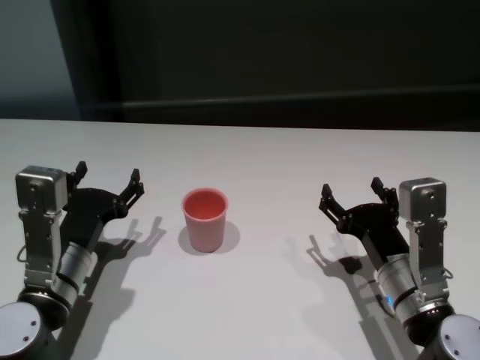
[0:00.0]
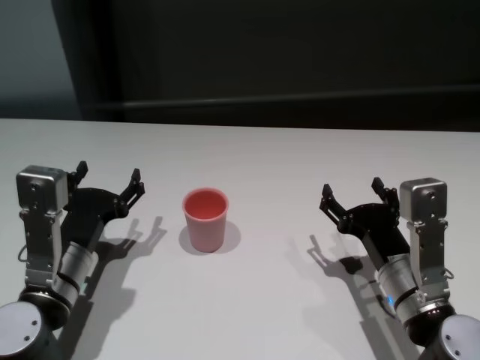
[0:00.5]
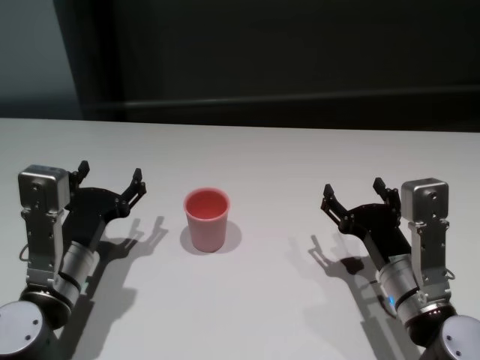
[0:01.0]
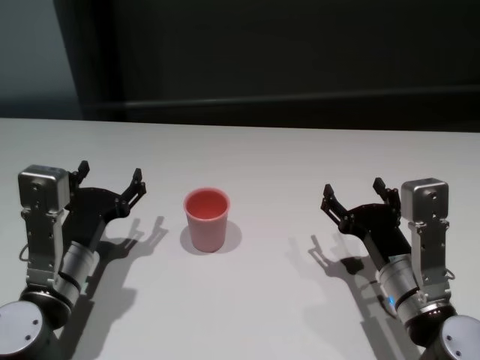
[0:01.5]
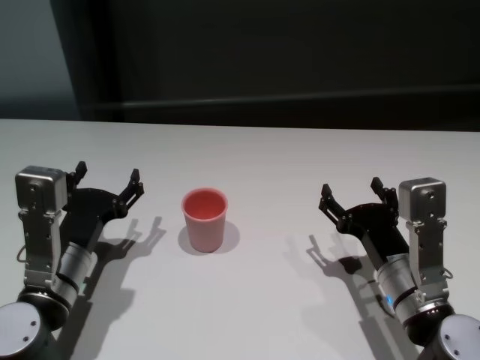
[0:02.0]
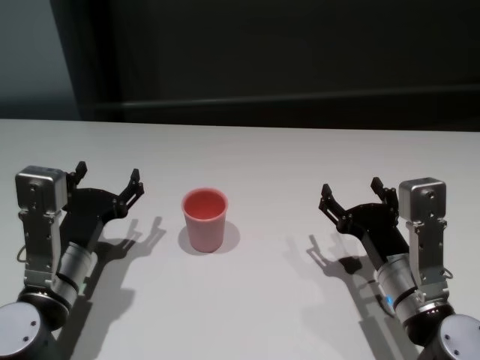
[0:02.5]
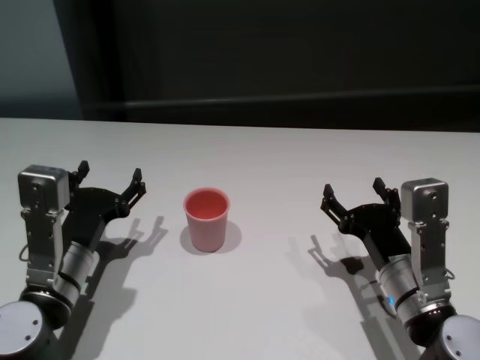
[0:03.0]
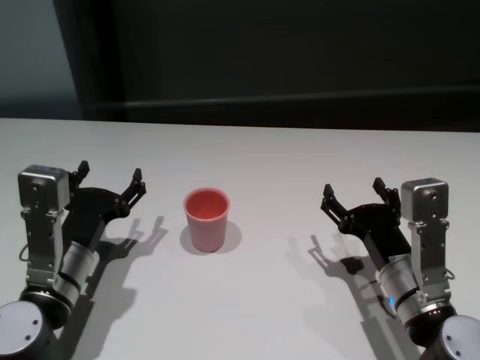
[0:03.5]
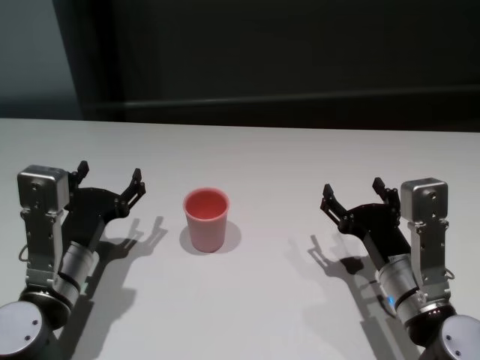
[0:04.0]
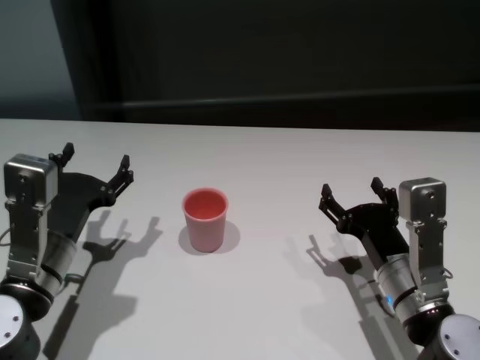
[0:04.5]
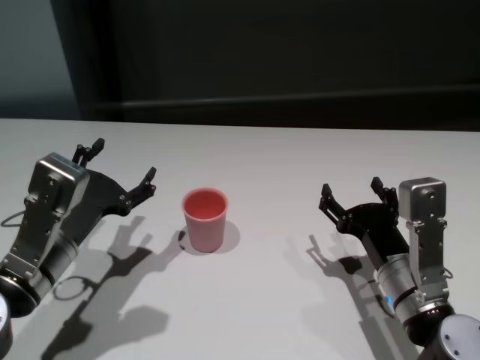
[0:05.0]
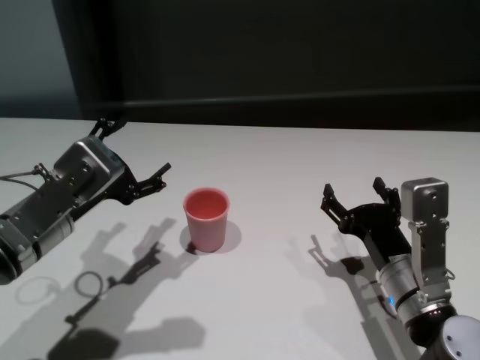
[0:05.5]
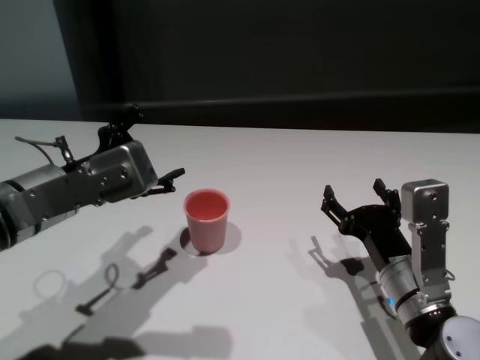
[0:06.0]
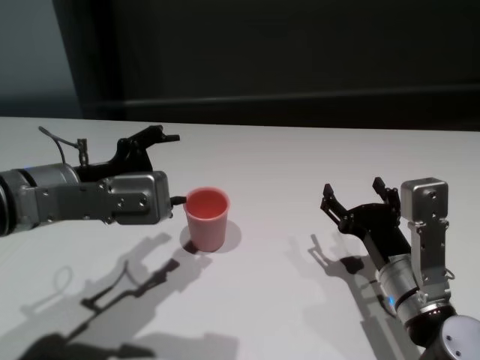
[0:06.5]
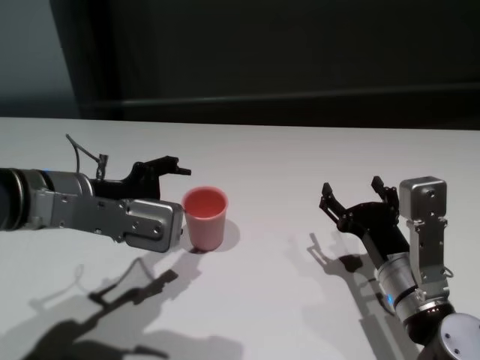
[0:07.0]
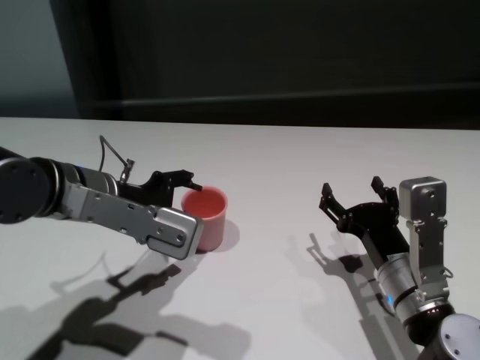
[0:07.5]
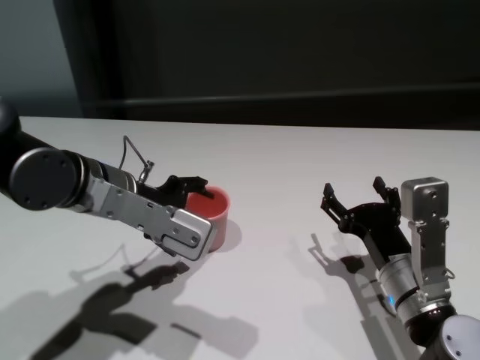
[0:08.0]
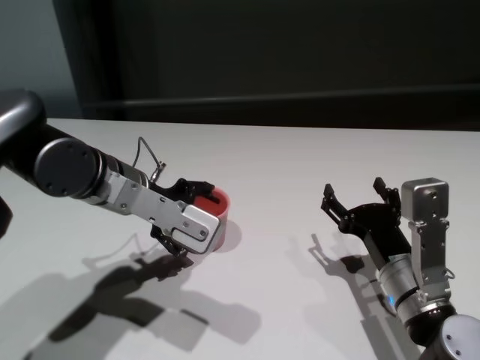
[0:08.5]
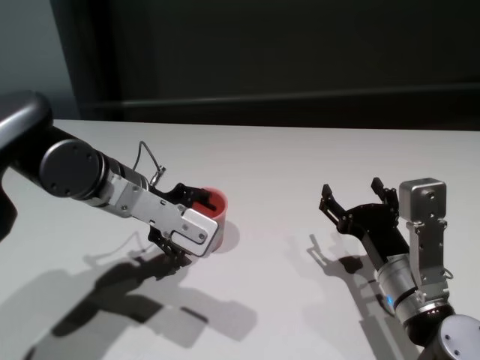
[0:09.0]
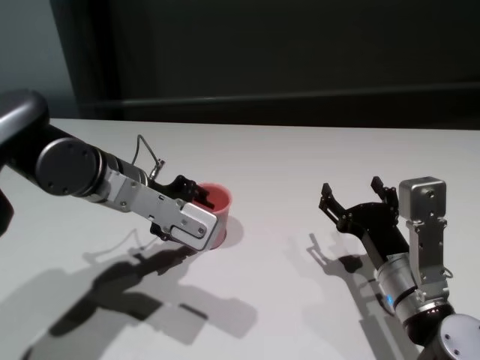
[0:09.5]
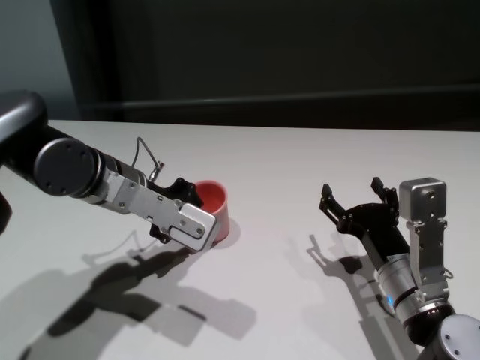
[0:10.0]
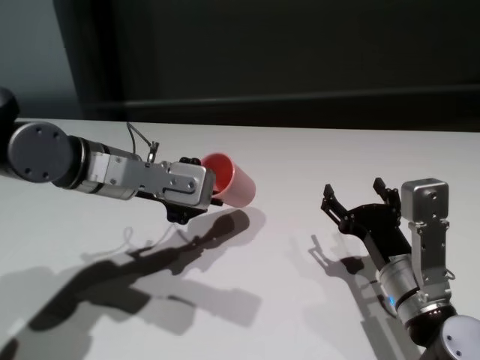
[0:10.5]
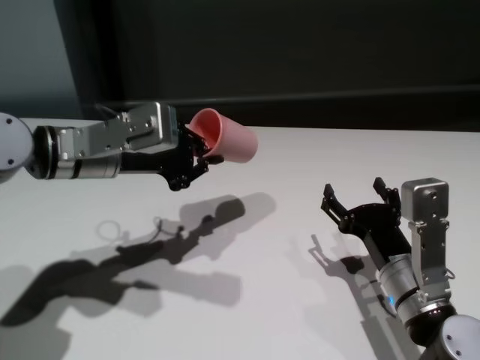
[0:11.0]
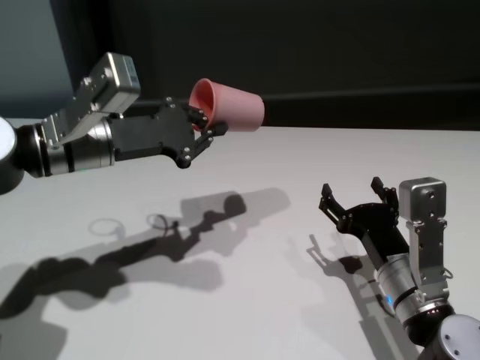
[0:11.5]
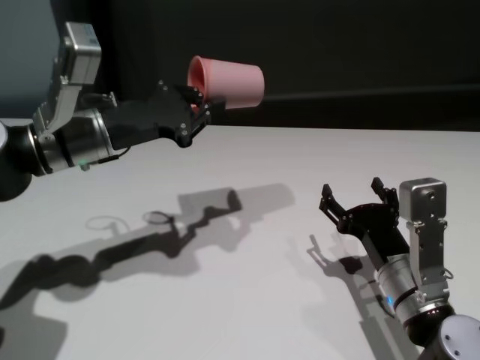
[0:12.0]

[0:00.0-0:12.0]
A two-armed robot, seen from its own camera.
Task of the whole recording: On the white table pick up the cup with one hand and transfer it to the other hand before turning it over.
Step, 0:00.0 to 0:09.5: Grasp the cup with left gripper.

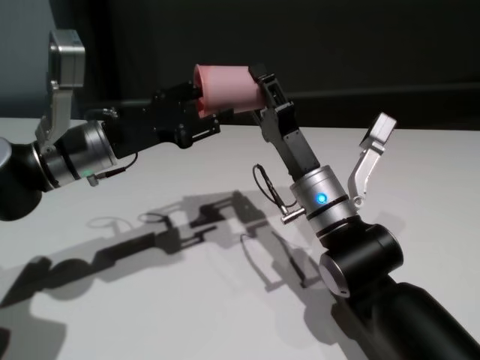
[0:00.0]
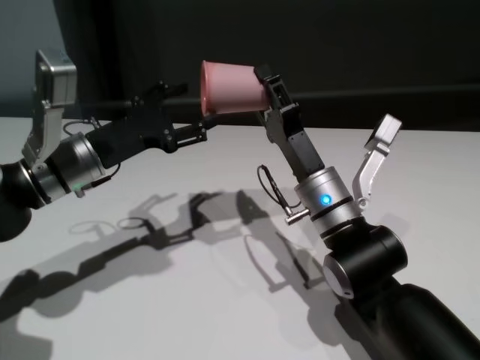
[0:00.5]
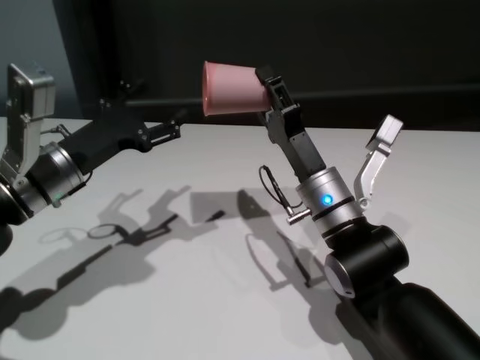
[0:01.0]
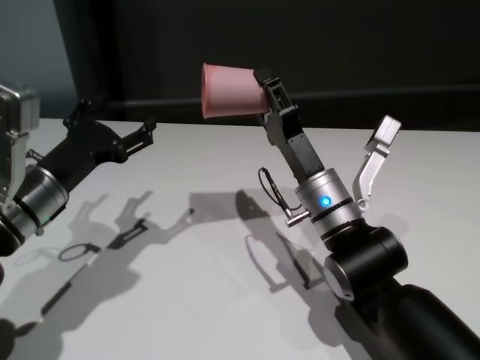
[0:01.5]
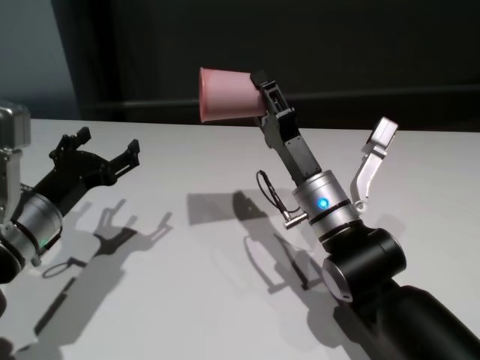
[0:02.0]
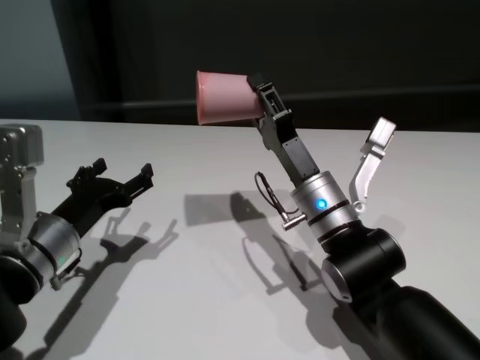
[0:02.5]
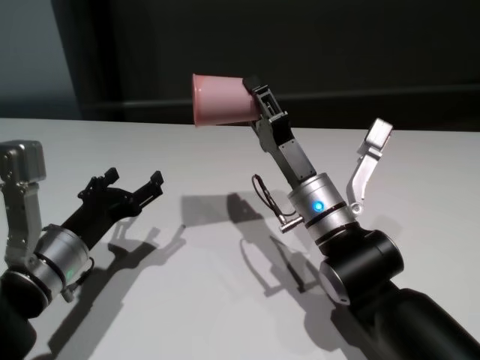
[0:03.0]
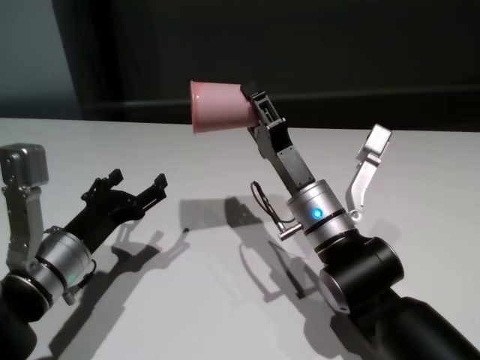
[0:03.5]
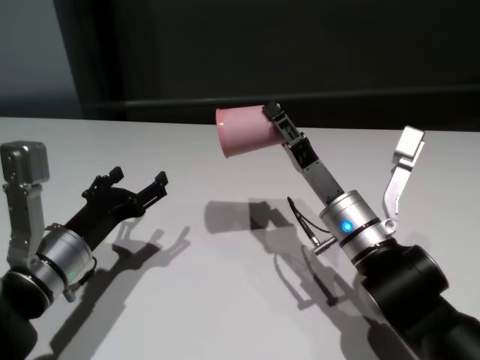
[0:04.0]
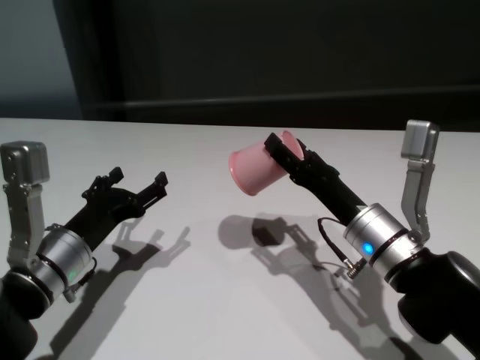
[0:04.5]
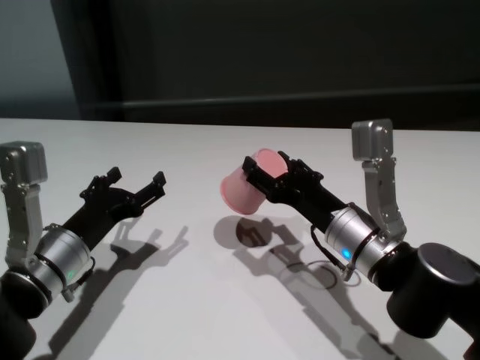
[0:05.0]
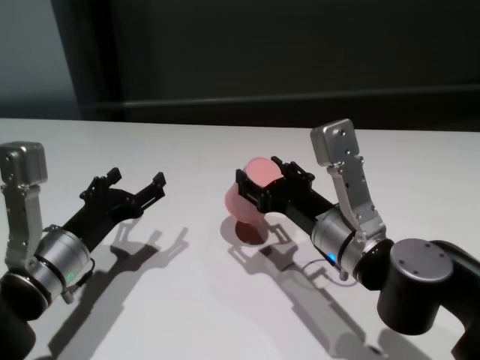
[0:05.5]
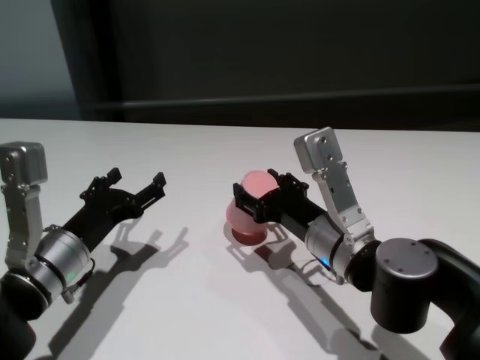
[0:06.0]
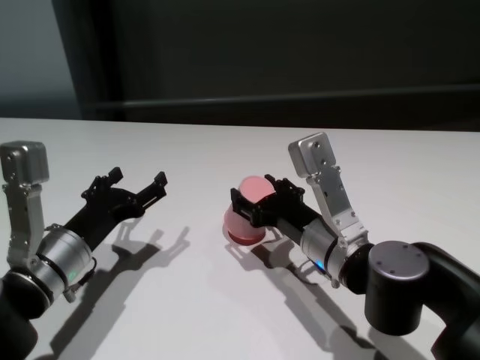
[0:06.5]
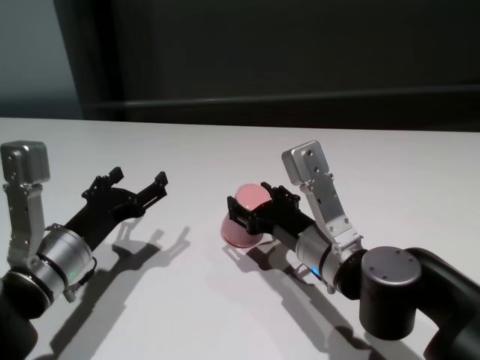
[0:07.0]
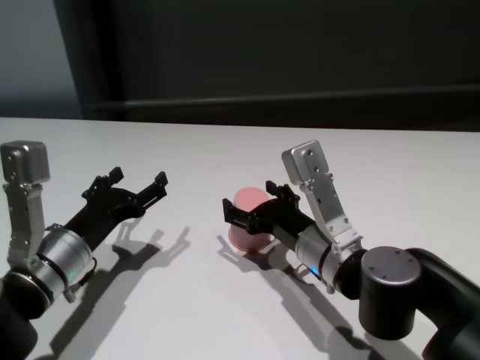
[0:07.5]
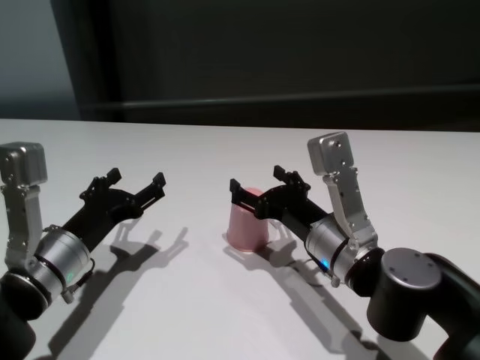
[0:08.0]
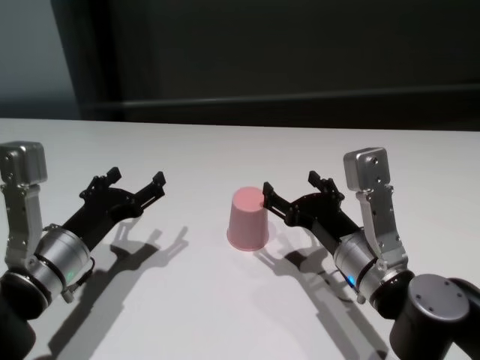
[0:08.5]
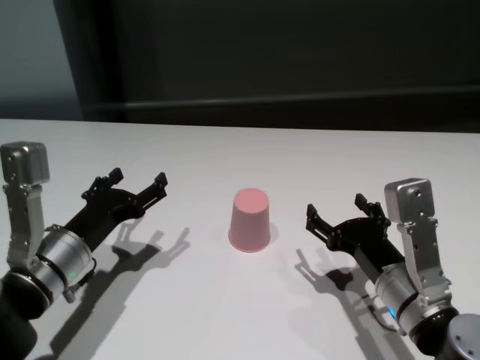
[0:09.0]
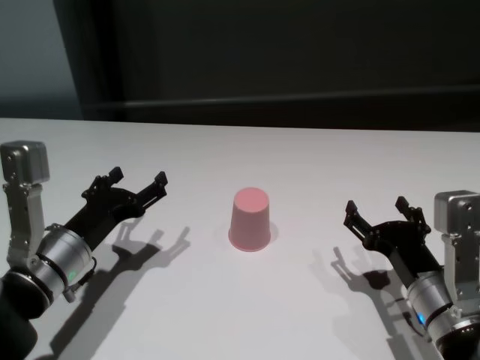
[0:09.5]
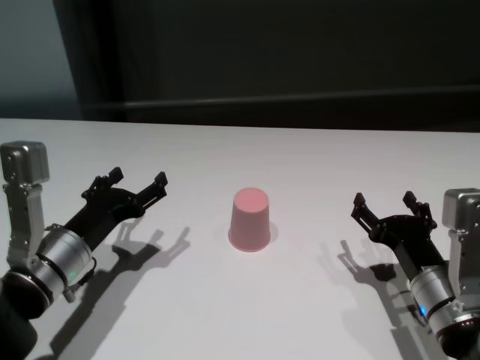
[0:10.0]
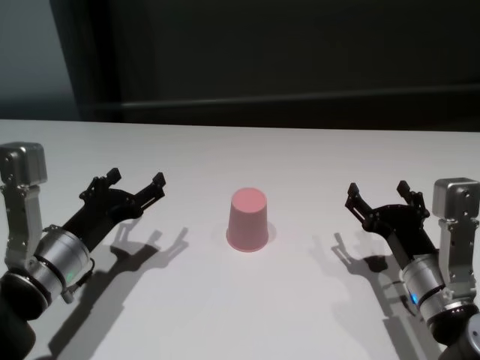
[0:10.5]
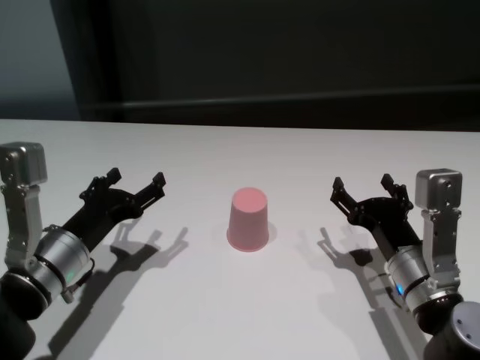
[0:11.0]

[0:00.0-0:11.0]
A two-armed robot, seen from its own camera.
Task of the whole recording: On the white table pick up the cup with one hand and transfer it to the other hand before turning it over.
Step, 0:01.5 to 0:07.5: Place the cup on the table with right gripper.
